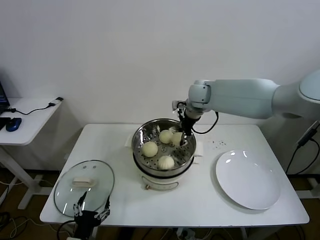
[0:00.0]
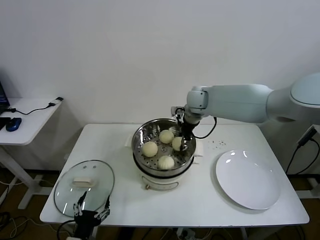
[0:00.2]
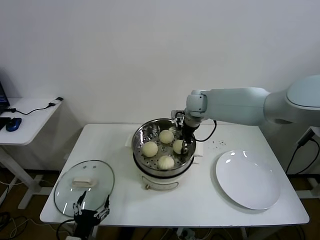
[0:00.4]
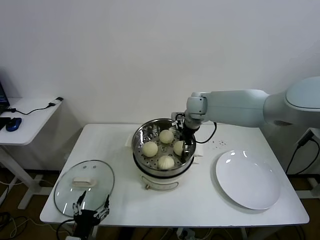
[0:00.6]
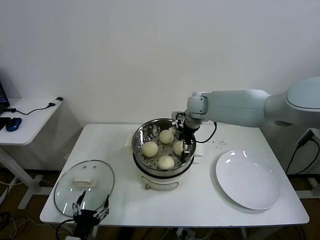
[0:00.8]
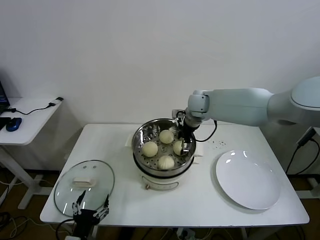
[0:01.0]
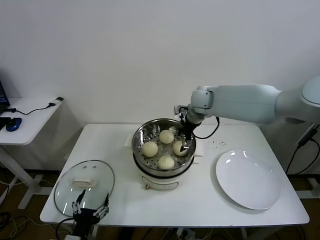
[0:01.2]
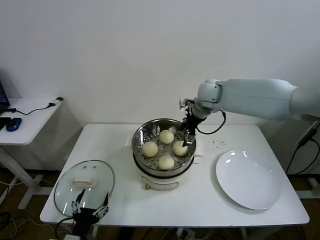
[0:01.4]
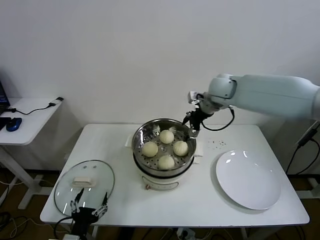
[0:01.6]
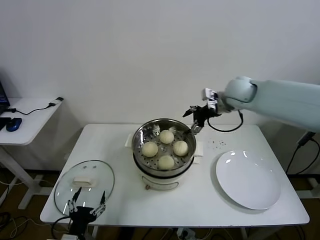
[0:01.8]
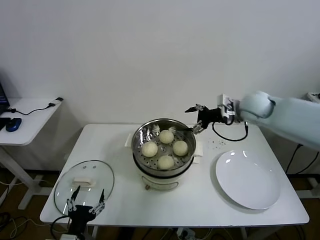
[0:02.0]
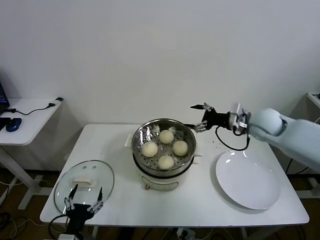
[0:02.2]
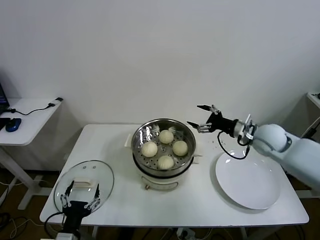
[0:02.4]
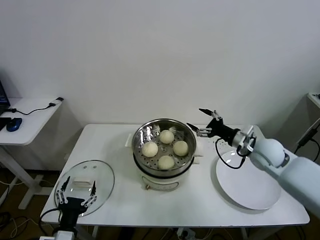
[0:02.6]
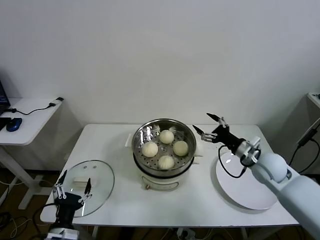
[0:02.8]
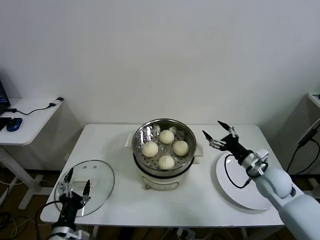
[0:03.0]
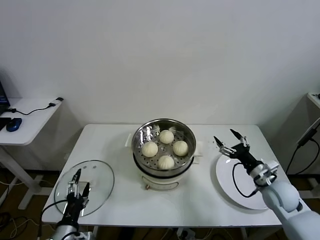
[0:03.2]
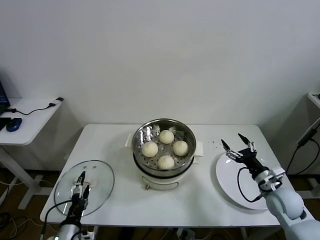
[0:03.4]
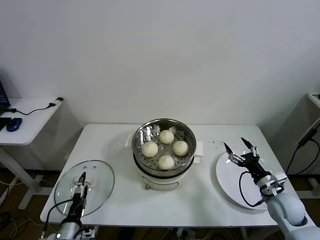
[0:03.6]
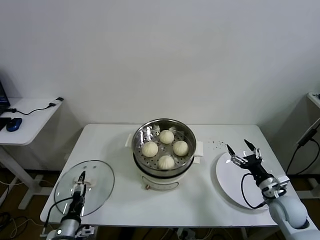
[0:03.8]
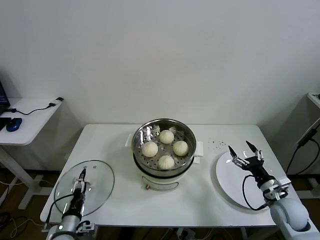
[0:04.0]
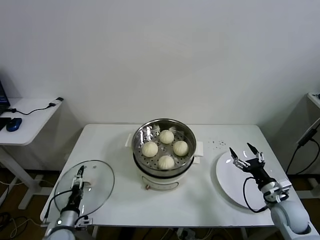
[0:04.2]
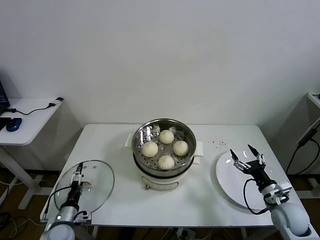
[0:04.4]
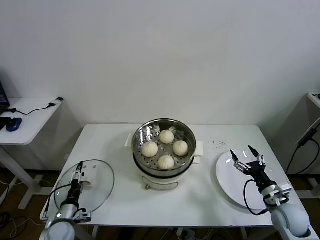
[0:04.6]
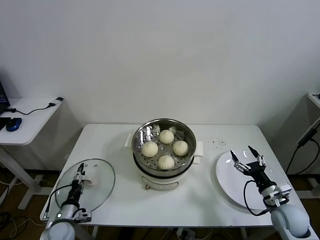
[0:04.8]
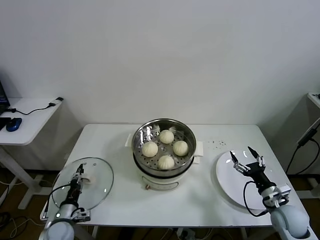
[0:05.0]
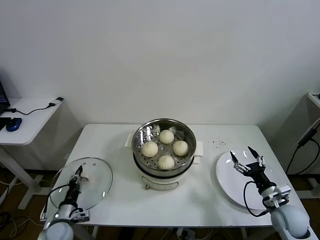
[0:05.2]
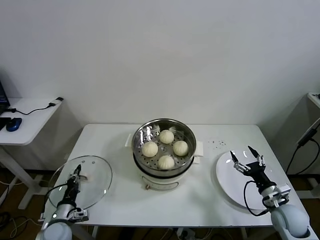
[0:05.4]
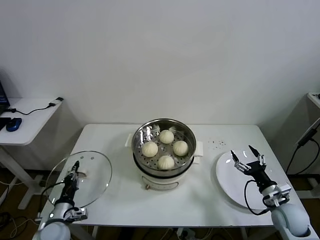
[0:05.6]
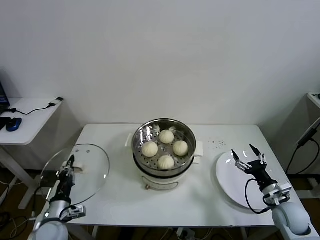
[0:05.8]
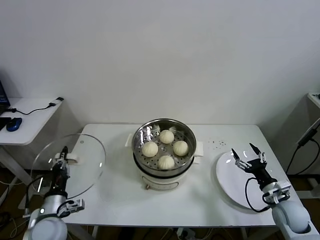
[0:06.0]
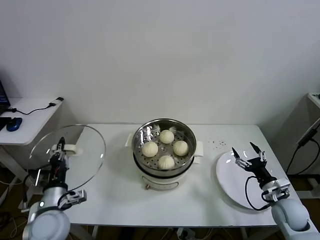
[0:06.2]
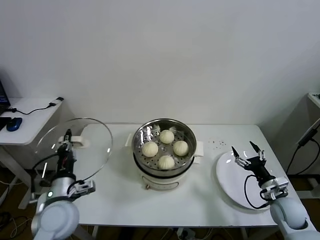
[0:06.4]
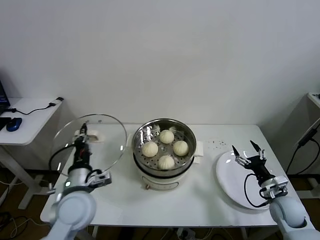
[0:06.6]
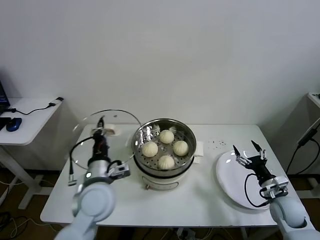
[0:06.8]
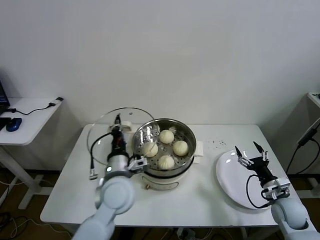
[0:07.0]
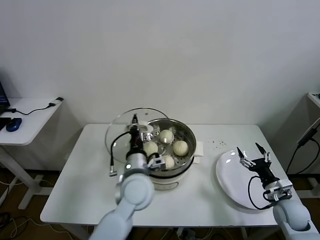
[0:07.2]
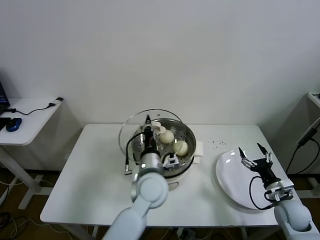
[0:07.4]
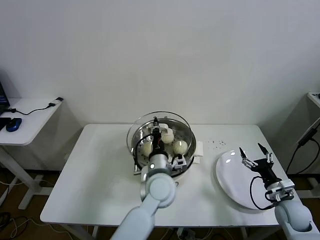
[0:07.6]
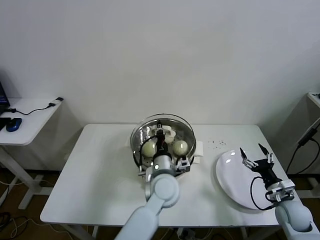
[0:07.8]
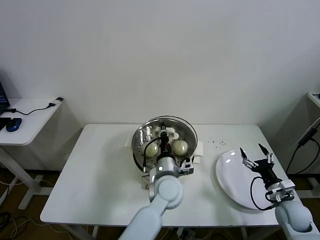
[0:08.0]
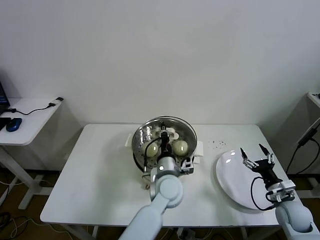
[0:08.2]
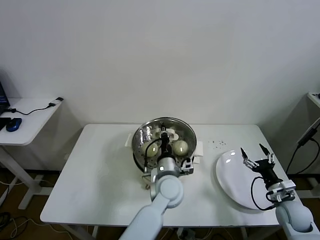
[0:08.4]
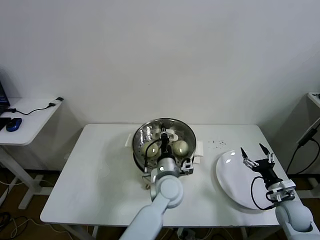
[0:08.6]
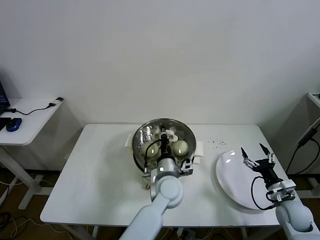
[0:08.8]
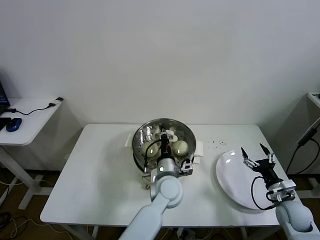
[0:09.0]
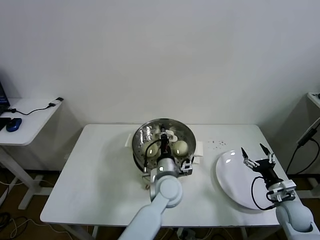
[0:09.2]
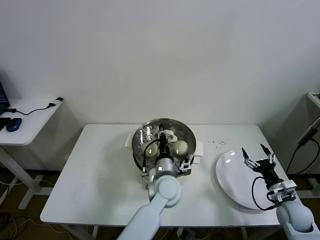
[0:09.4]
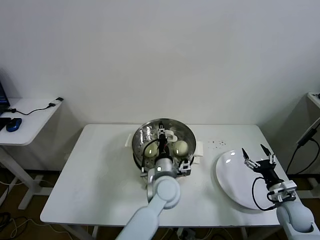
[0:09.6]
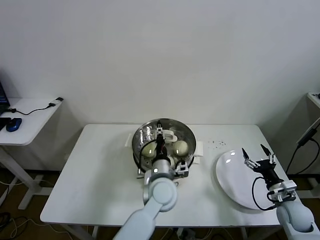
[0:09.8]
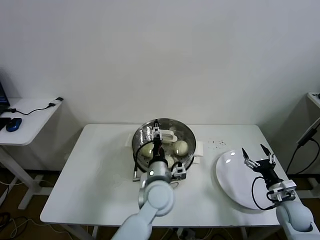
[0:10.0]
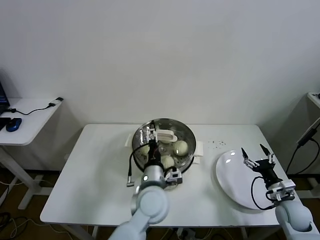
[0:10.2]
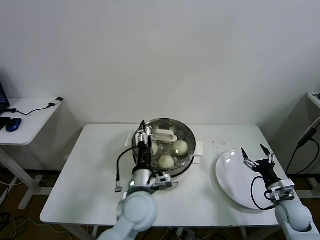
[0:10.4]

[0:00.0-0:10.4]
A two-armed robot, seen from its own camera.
Task of the whole recording: take steamed baozi put them in steamer.
Step, 0:01.0 to 0:05.2: Grasp the pot lid with left gripper.
Step, 0:05.4 to 0:10.0: Place the pot lid on the steamer with left gripper.
0:00.0 to 0:01.4: The right gripper opens.
0:01.4 to 0:03.0: The right gripper shifts about 35 cm backward, downward and to the right.
0:03.0 to 0:04.4: The left gripper travels downward, forward and to the left by about 15 cm, while the right gripper heads backward and downward, covering approximately 10 cm.
0:04.4 to 0:06.0: The left gripper heads upward, covering approximately 10 cm, and closes.
0:06.0 to 0:07.4: The left gripper is displaced to the right by about 30 cm.
0:07.4 to 0:09.0: The left gripper is displaced to the right and downward by roughly 10 cm.
0:09.0 to 0:10.4: The left gripper goes roughly 10 cm to the left and backward, and opens.

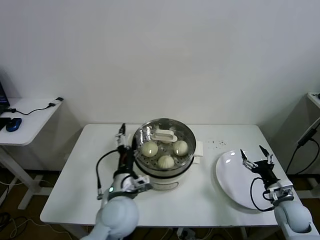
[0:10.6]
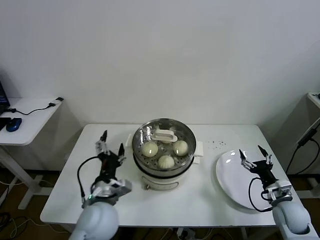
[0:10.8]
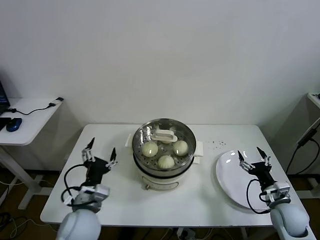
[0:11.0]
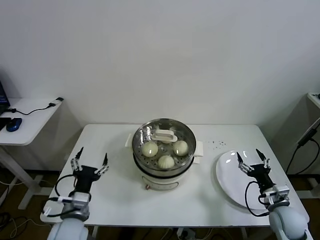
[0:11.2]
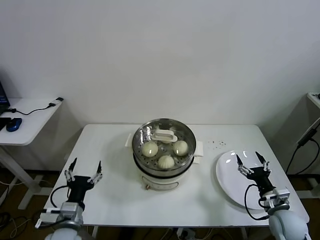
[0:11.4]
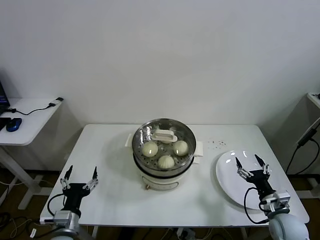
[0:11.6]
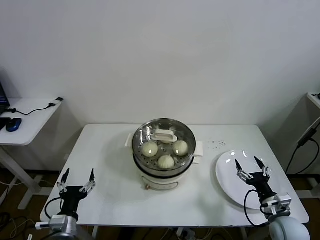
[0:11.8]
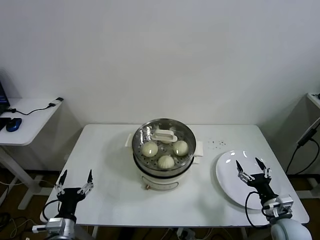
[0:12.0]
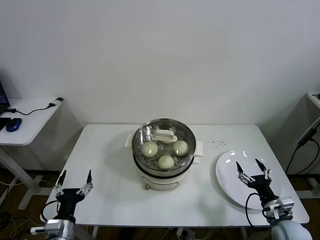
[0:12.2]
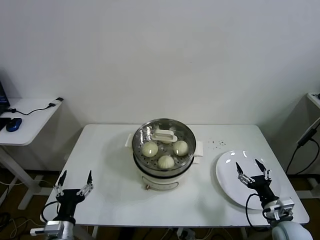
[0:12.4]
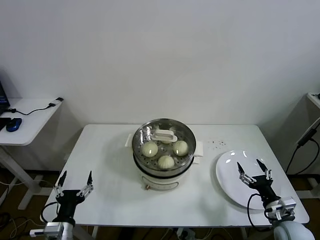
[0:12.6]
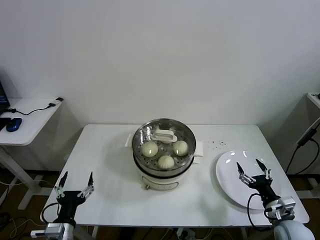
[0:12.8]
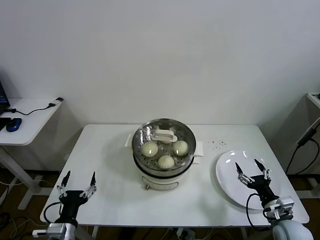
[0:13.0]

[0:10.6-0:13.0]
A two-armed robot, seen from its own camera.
Task of the whole recording: take steamed baozi put them in steamer.
0:10.6 to 0:11.8: The right gripper shifts by roughly 5 cm, while the left gripper heads to the left, downward and backward, covering some 25 cm.
0:11.8 to 0:13.0: The grippers move only a little.

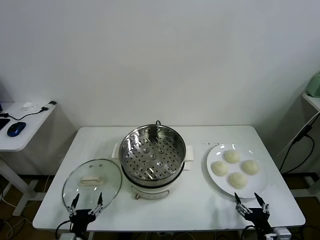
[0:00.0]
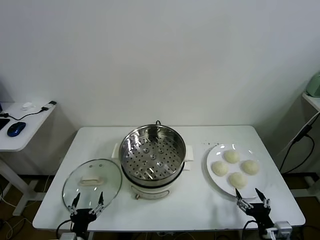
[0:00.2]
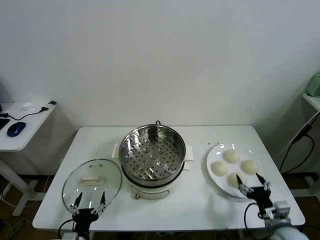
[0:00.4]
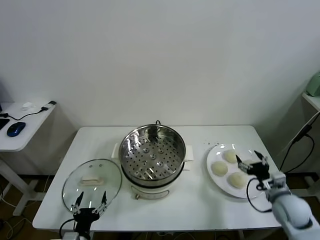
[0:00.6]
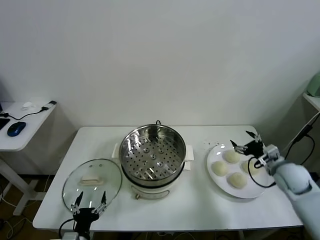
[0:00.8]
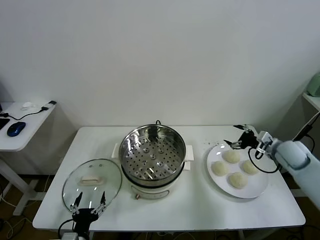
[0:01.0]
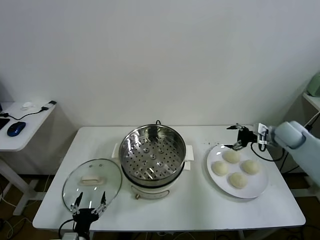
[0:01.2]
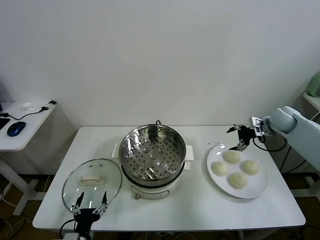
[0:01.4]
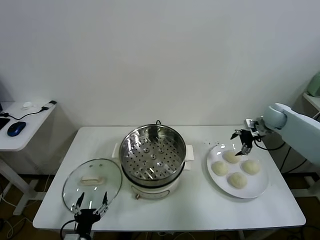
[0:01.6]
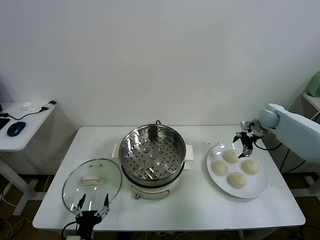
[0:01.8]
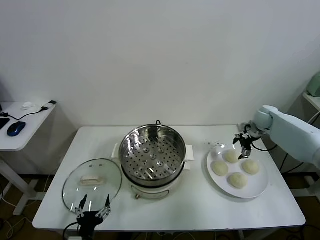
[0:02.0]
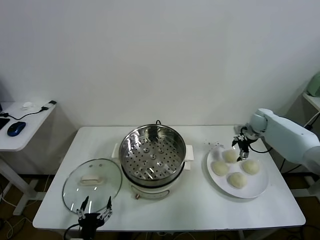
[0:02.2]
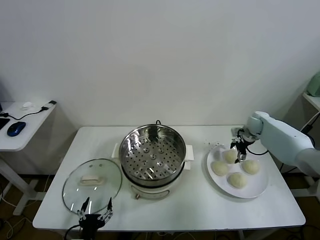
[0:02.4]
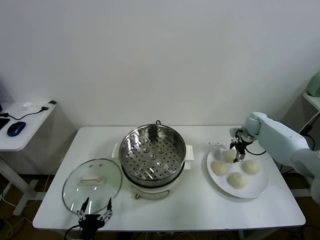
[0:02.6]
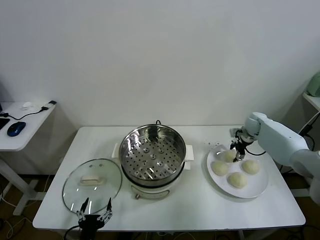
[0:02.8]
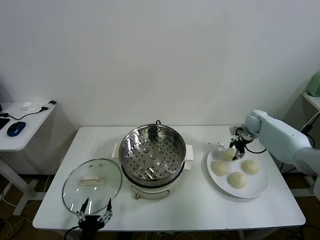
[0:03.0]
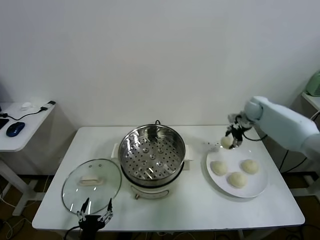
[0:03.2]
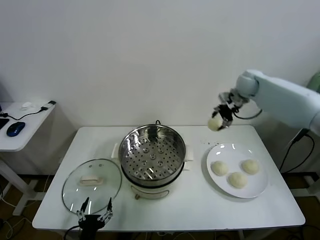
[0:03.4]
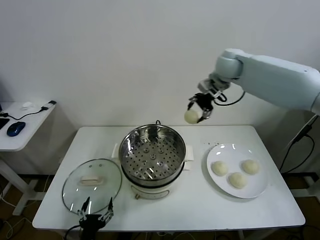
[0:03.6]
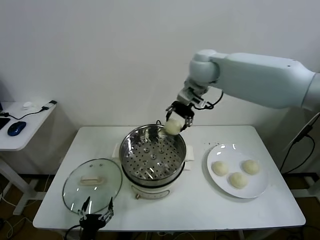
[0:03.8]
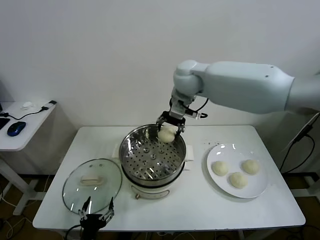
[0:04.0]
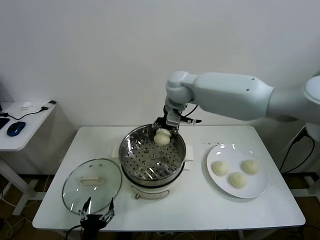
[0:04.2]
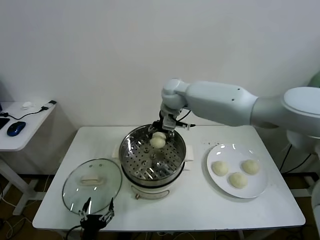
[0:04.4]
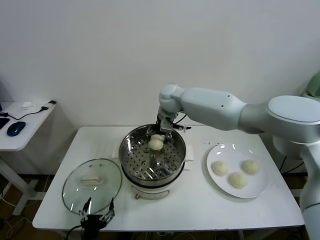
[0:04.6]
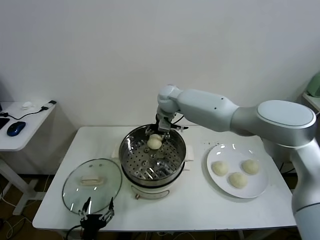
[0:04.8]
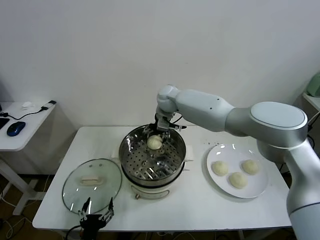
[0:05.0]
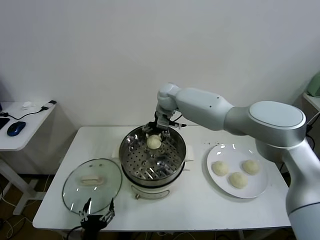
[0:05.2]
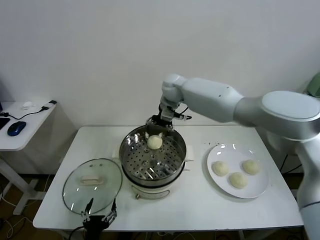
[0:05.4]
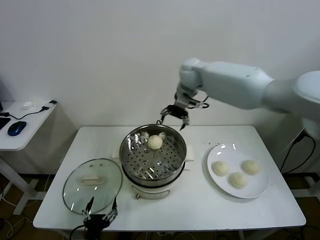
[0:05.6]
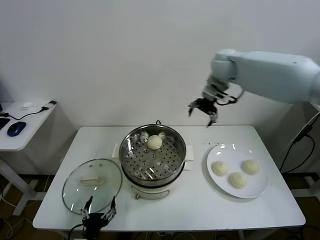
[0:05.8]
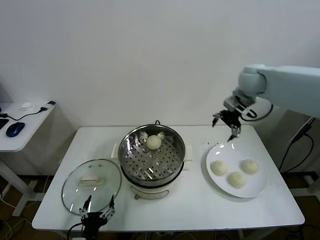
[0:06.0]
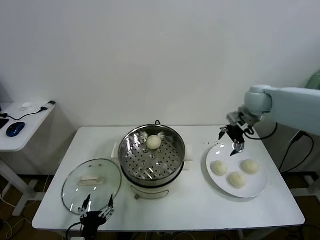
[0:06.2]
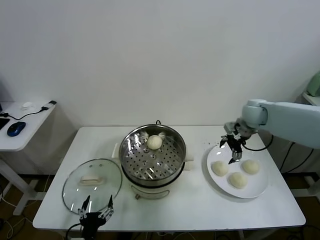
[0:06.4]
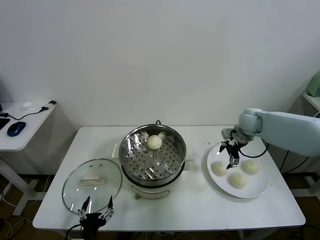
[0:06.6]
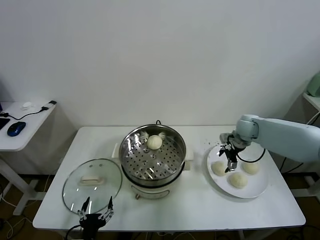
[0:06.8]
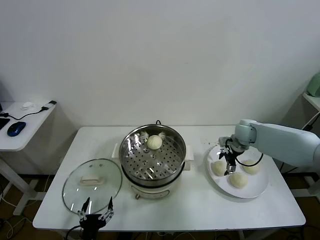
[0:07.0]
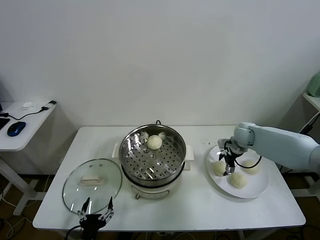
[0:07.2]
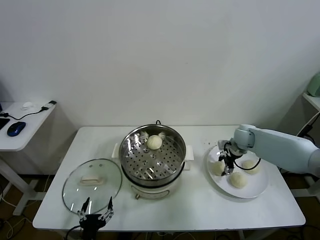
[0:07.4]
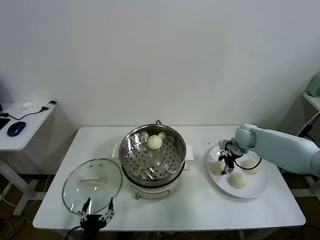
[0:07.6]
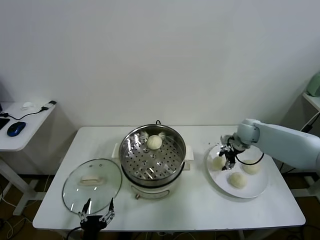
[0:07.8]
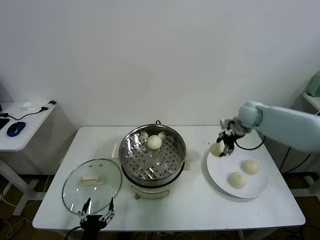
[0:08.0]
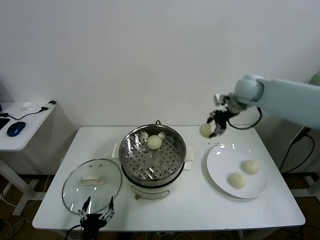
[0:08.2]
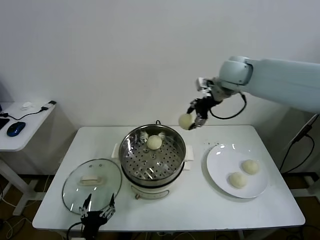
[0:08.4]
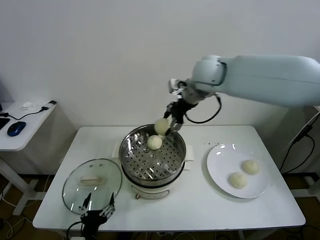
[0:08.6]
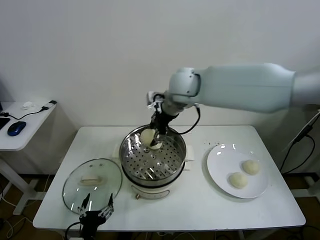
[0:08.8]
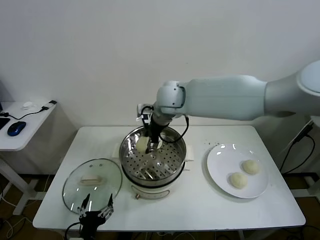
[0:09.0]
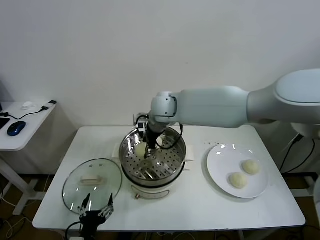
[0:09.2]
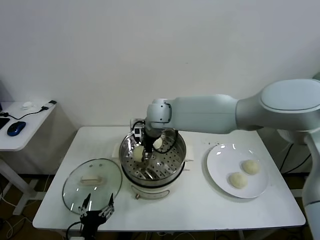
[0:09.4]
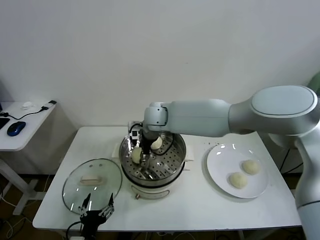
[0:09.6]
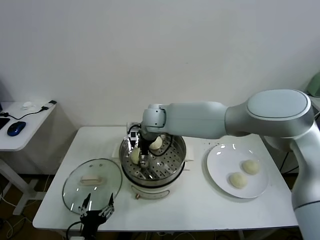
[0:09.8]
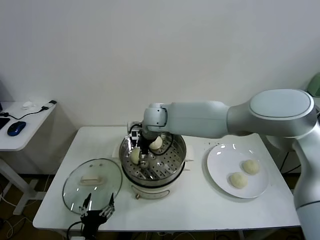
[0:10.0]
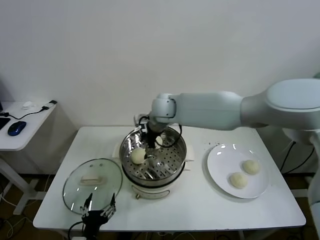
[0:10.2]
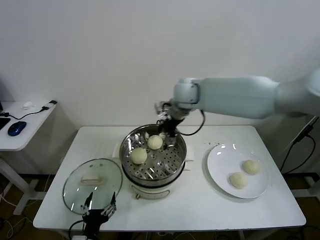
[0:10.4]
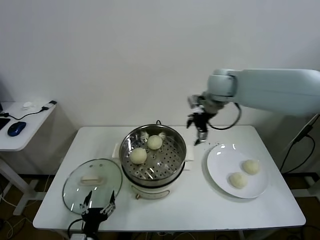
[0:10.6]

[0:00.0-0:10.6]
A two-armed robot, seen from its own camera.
Task of the whole recording: take steamed baozi put them in steamer.
Step, 0:00.0 to 0:02.8: Grasp the baozi in the plate with right gripper.
Step, 0:03.0 to 0:05.2: Place the baozi on the steamer with right gripper.
Step, 0:05.4 to 0:07.4: Grasp the baozi in the plate with right gripper.
Step, 0:07.6 to 0:10.0: Place the baozi on the steamer with right gripper.
0:01.6 to 0:03.0: The right gripper shifts by some 5 cm, and closes.
0:03.0 to 0:04.6: The right gripper is displaced to the left by approximately 35 cm.
0:04.6 to 0:06.0: The right gripper is displaced to the right by about 30 cm, and opens.
0:06.0 to 0:07.6: The right gripper travels downward by approximately 20 cm, and closes up.
0:07.6 to 0:09.0: The right gripper travels to the left and upward by roughly 40 cm.
0:09.0 to 0:10.6: The right gripper moves to the right, roughly 20 cm, and opens.
